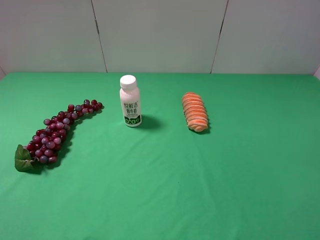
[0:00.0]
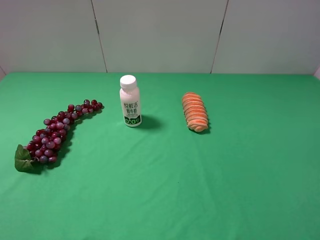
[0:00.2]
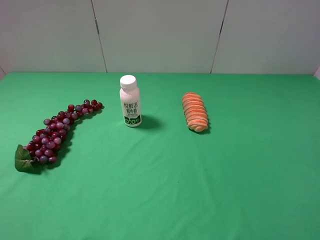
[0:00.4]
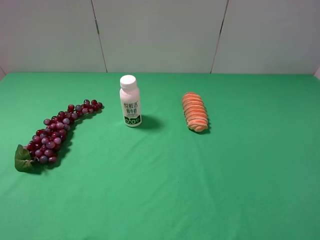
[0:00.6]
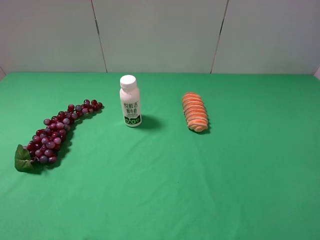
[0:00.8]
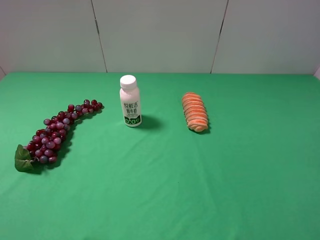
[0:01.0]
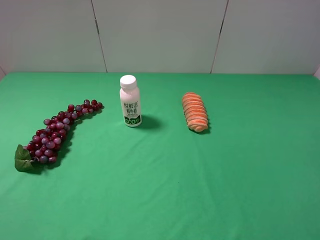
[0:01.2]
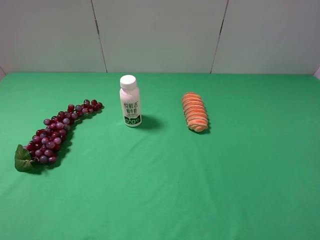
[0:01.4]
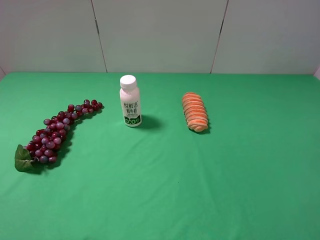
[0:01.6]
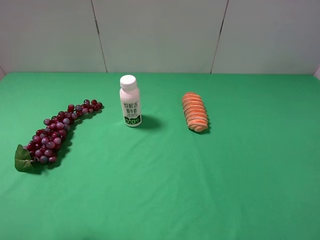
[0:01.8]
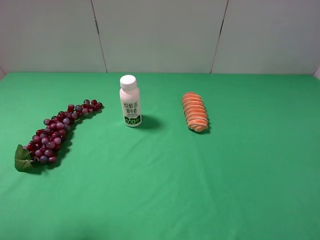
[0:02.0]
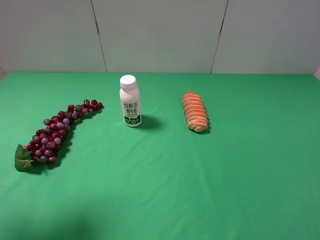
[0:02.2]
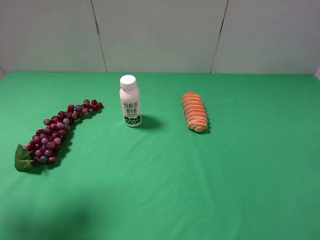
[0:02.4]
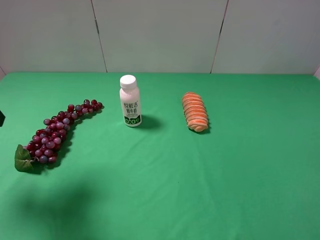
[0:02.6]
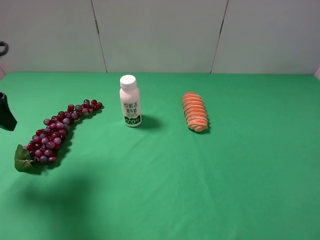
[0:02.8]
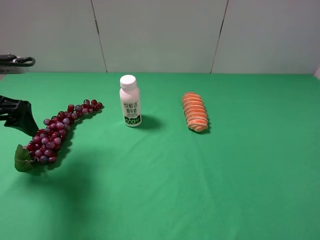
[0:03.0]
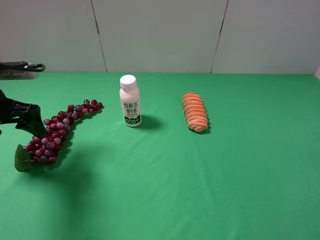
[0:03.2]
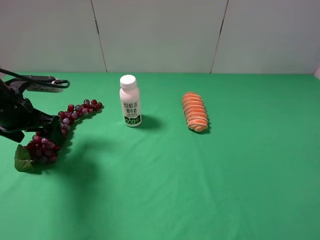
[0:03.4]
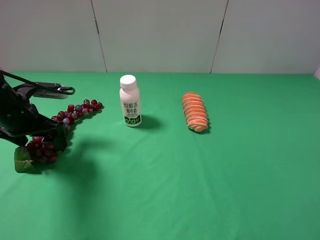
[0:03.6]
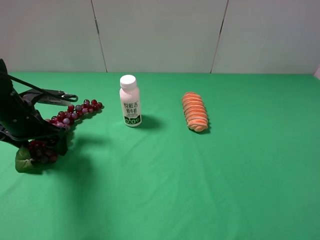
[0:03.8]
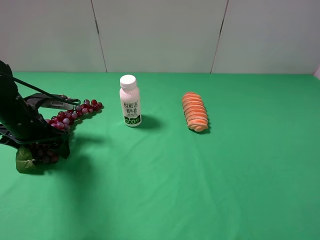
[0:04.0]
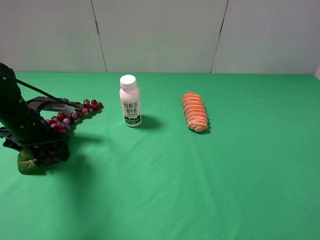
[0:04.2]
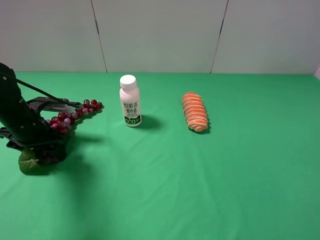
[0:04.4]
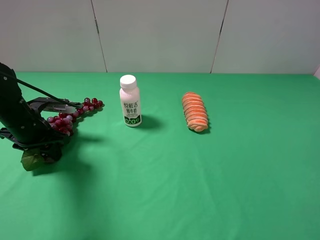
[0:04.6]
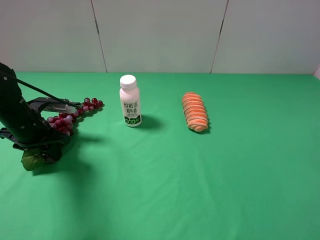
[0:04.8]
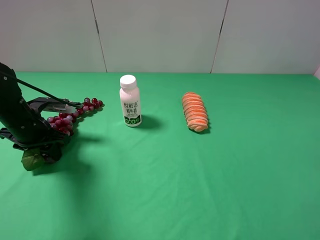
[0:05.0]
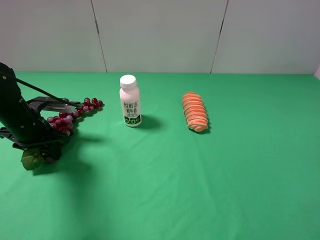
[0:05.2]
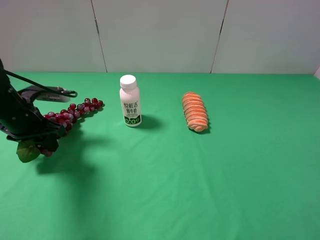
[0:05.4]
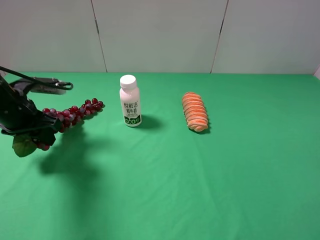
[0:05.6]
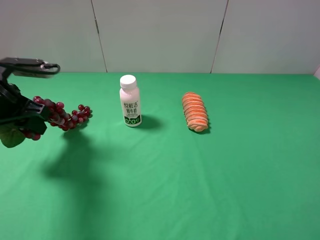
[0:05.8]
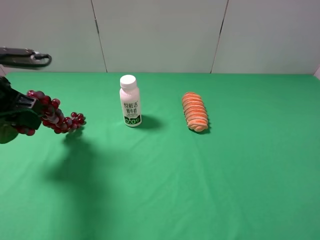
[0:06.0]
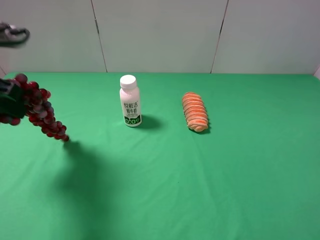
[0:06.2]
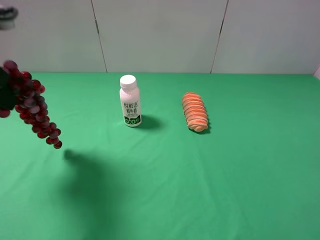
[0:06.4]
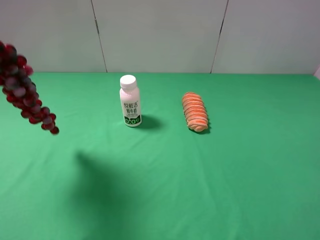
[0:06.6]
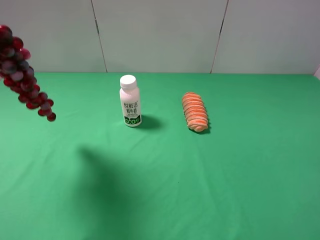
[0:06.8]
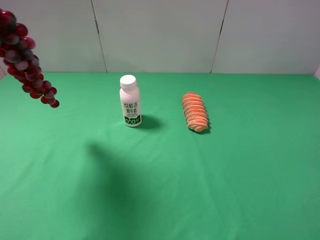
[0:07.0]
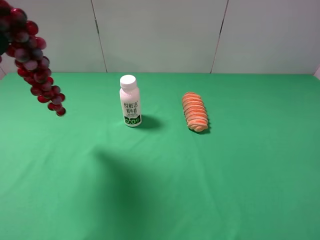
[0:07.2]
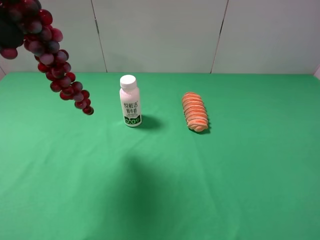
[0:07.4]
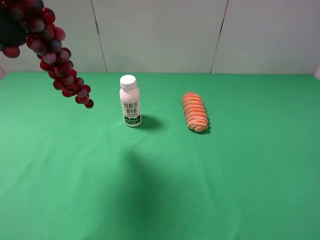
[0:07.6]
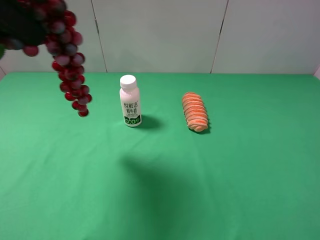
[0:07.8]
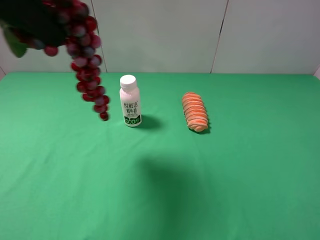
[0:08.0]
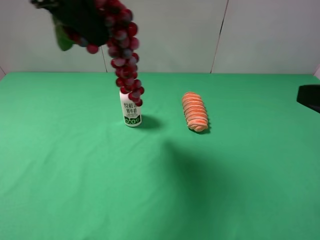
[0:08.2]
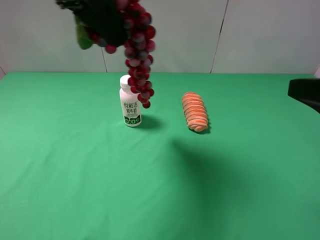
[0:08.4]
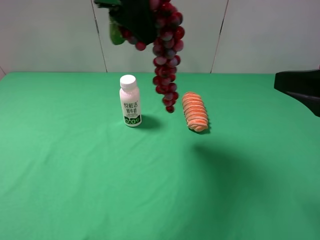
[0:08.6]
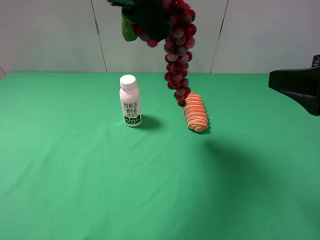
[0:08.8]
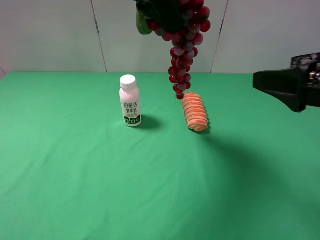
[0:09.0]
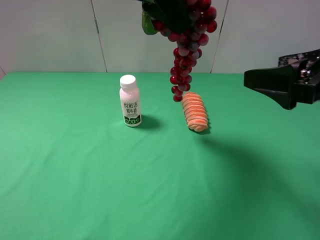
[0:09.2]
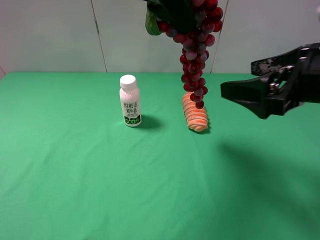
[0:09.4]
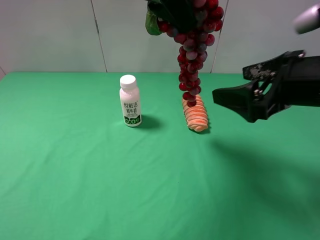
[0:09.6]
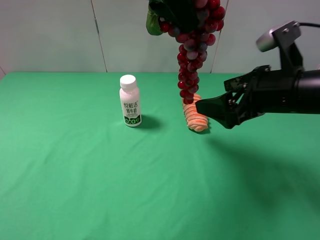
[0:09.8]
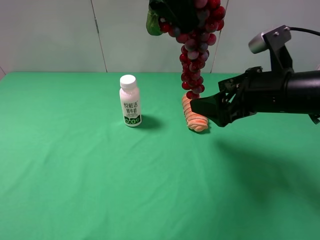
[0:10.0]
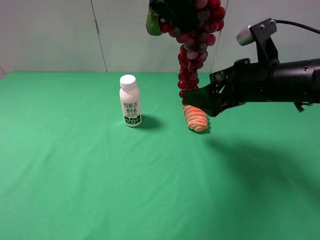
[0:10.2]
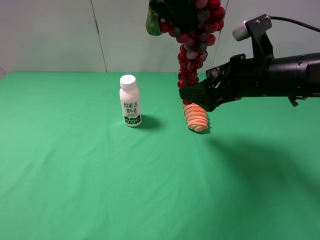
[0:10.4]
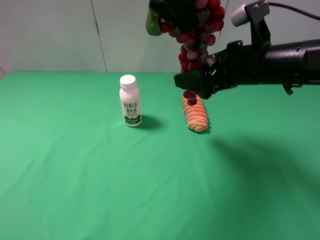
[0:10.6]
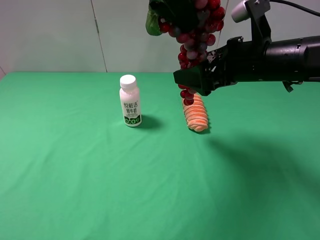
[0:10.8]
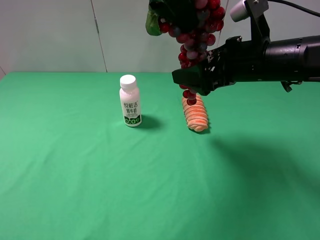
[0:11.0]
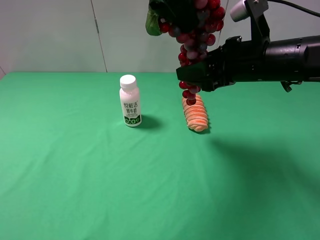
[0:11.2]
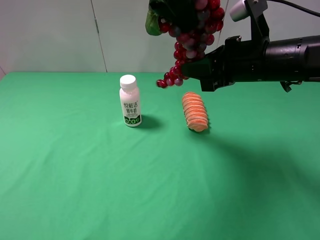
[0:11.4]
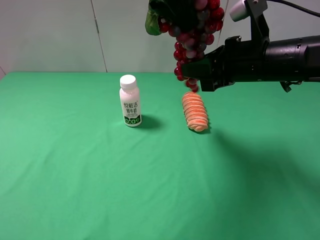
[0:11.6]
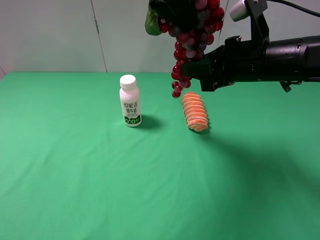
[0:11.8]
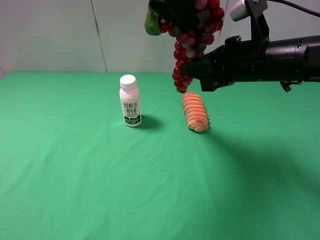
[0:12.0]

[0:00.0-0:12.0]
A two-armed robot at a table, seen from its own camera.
Task of the whole recording: use the left gripper to pick up the item and transfer it from the left gripper to the right gripper.
Step, 0:00.0 to 0:04.8: Use the left gripper to grab the grape on the left side of the table.
0:01.6 to 0:03.0: The left gripper shifts roughly 20 cm forward and downward.
0:03.0 to 0:04.4: The left gripper moves downward, approximately 10 cm, and closes up.
0:04.4 to 0:06.0: The left gripper moves upward, some 15 cm.
0:06.0 to 0:07.6: The left gripper moves upward, some 15 cm.
0:07.6 to 0:09.0: The left gripper moves to the right, about 20 cm. Meanwhile the right gripper heads forward, covering approximately 15 cm.
0:09.0 to 0:10.4: The right gripper moves forward, to the left and downward, some 15 cm.
0:10.4 to 0:12.0: The right gripper closes its fingers.

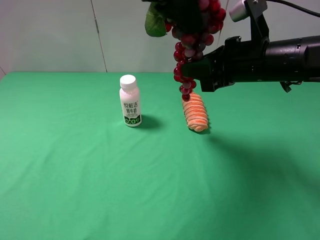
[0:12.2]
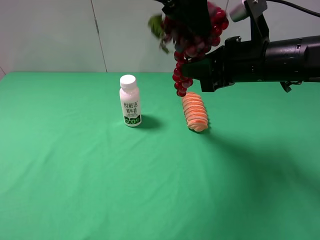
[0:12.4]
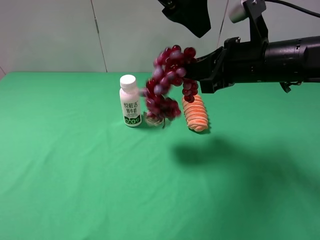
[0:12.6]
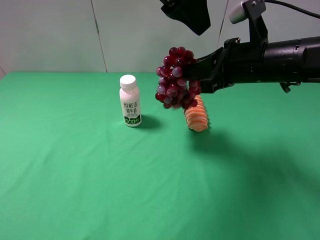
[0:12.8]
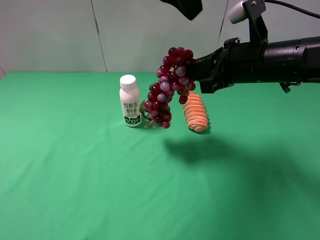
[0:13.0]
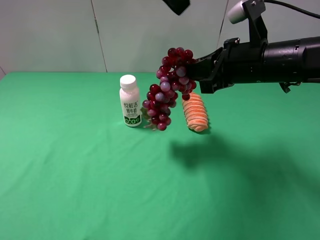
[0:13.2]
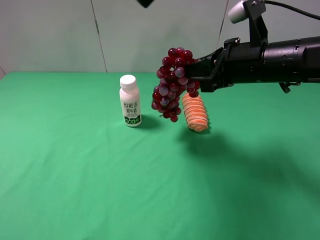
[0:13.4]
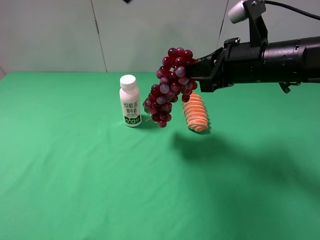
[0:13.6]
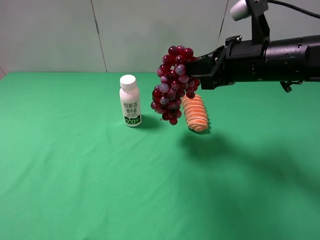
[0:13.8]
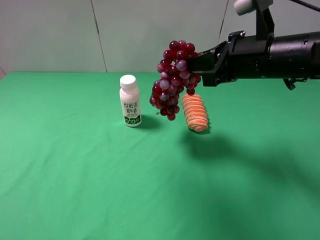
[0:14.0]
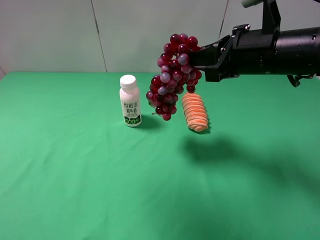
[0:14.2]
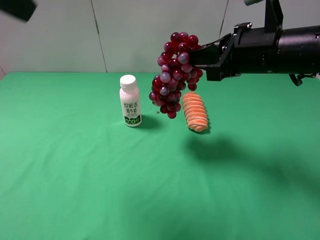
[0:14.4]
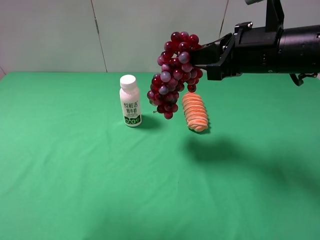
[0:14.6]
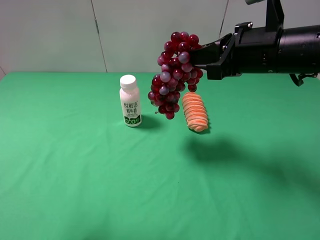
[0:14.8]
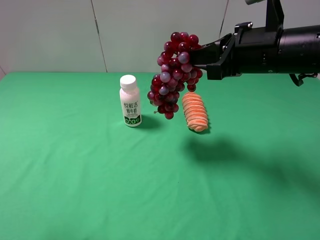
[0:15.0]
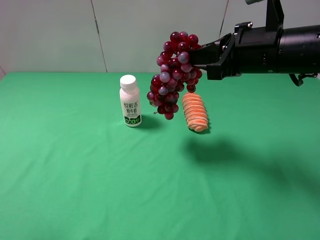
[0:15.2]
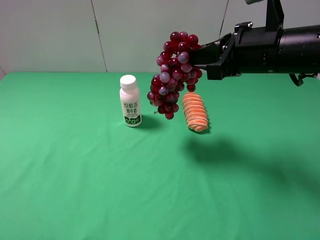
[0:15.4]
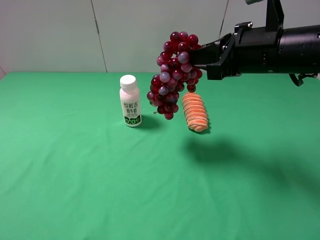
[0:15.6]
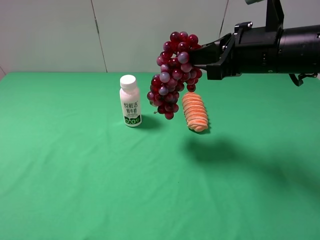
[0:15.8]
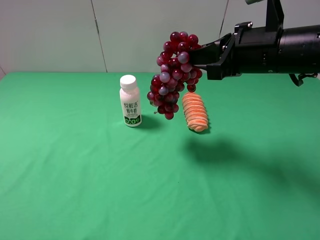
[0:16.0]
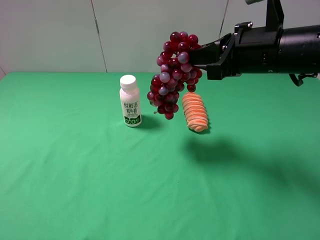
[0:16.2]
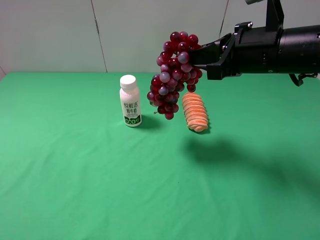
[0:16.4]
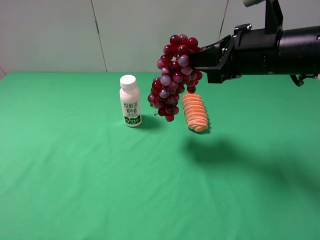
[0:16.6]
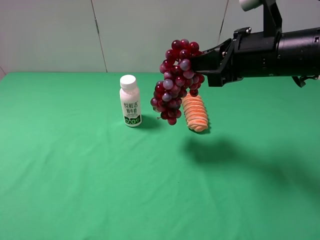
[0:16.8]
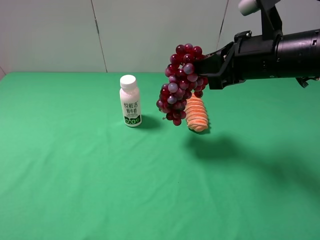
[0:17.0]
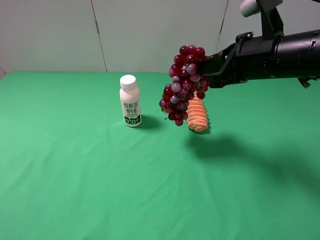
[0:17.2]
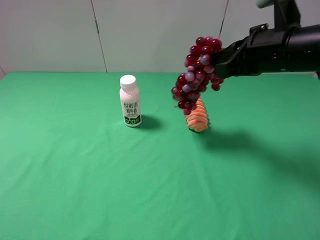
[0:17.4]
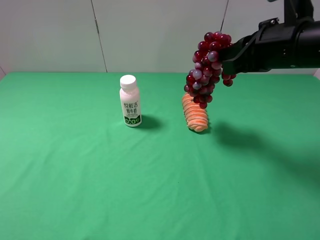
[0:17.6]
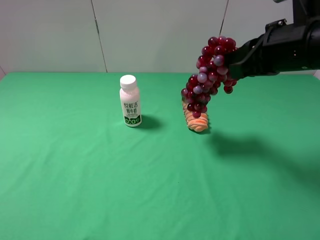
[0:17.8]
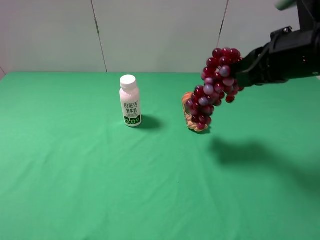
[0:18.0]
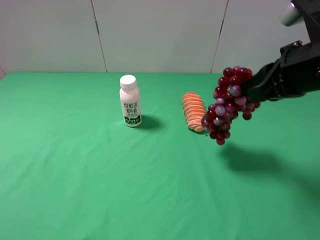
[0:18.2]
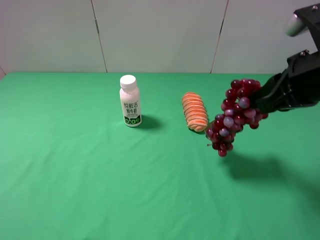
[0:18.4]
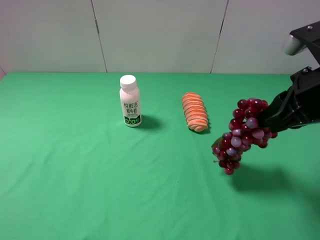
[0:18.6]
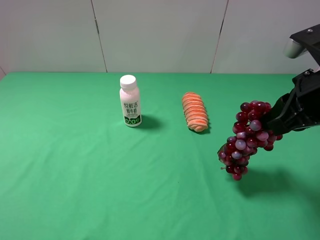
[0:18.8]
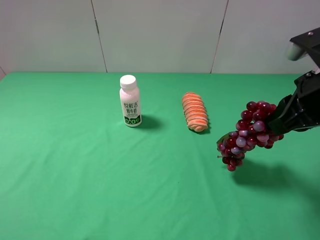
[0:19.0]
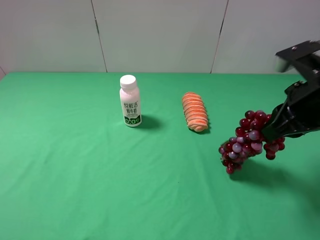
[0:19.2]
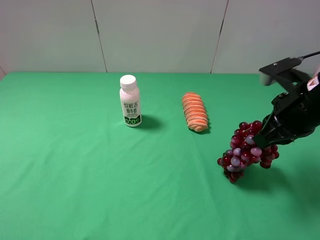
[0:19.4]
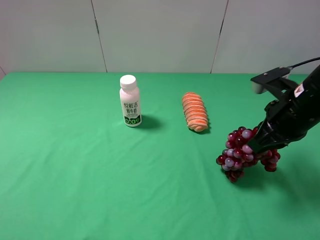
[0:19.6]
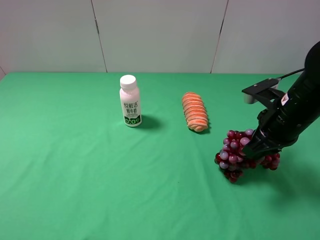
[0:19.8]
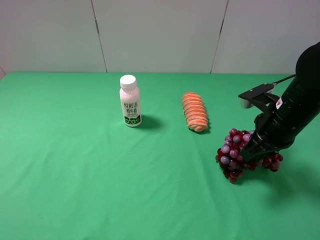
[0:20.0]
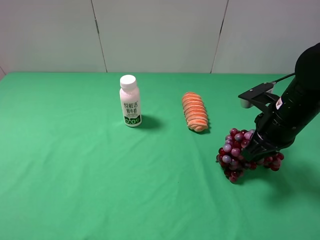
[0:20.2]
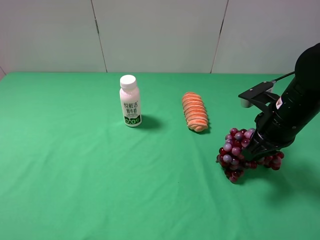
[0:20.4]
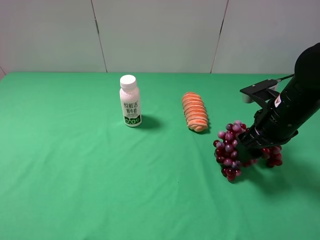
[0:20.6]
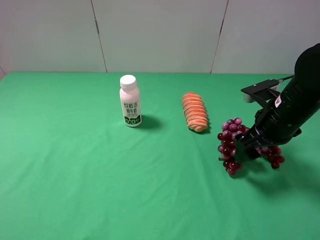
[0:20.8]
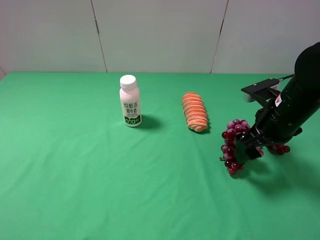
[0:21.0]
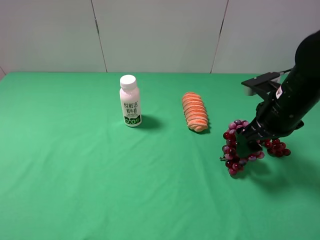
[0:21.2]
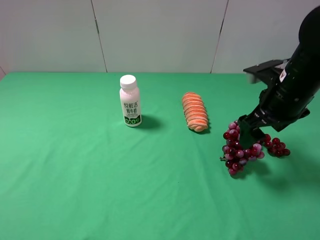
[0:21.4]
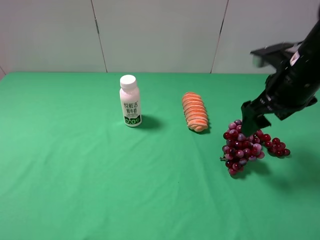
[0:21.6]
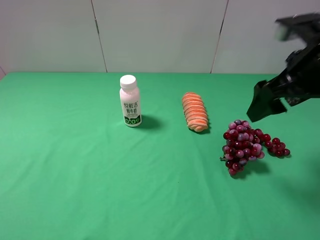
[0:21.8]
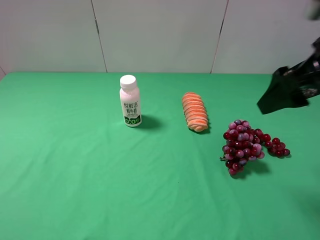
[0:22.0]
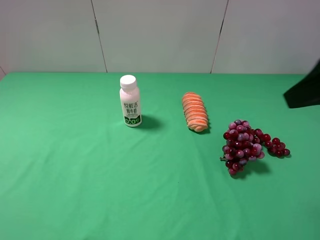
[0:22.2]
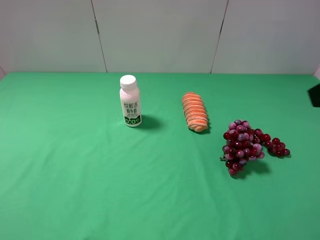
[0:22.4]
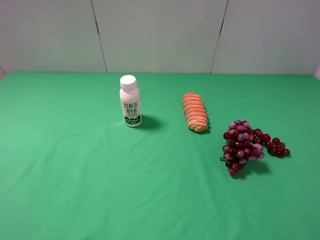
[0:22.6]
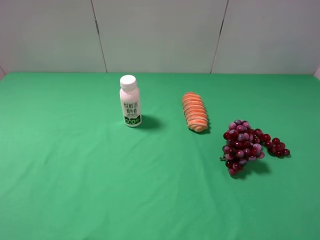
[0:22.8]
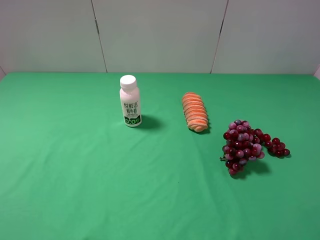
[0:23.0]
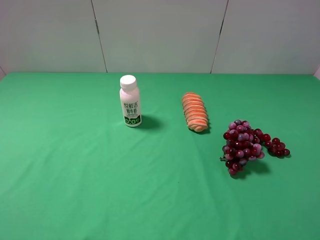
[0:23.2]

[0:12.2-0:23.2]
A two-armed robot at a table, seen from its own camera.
Task of the whole recording: use the left gripper to pick up the item and transfer it from the left gripper to the right gripper.
Step, 0:13.0 to 0:21.6: The right gripper places grape on the right side of the table.
0:12.2 to 0:13.8: The left gripper heads to the left, upward and backward, covering roughly 15 cm, and opens up.
0:13.8 to 0:15.4: The left gripper moves backward, downward and to the left, approximately 35 cm.
0:17.0 to 0:18.4: The right gripper goes some 10 cm backward and to the right.
0:18.4 to 0:20.0: The right gripper is displaced downward by approximately 10 cm.
0:20.0 to 0:21.6: The right gripper heads upward, covering some 10 cm, and opens up.
0:21.6 to 0:23.2: The right gripper goes approximately 25 cm backward.
